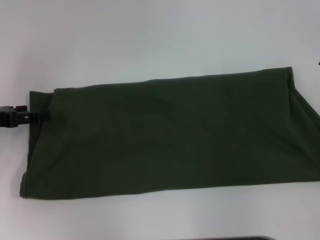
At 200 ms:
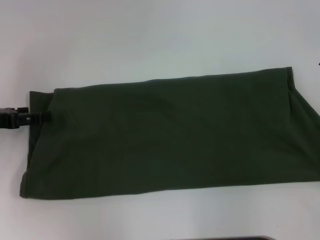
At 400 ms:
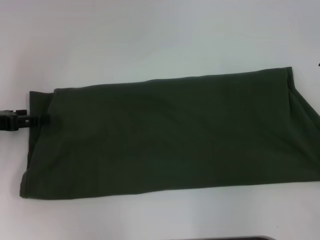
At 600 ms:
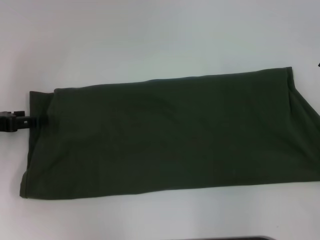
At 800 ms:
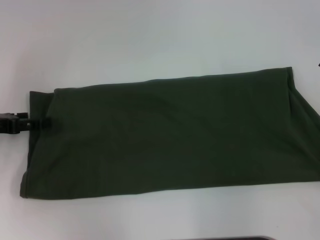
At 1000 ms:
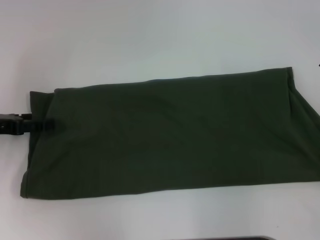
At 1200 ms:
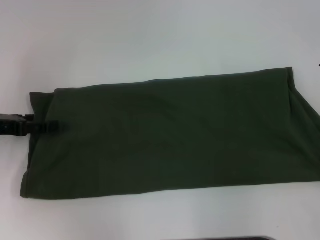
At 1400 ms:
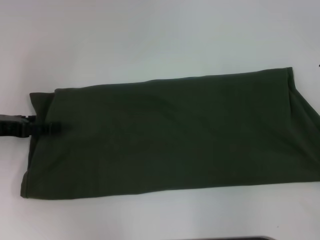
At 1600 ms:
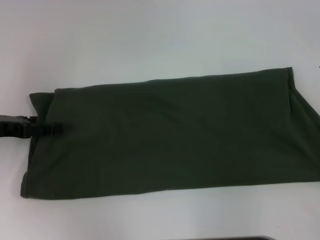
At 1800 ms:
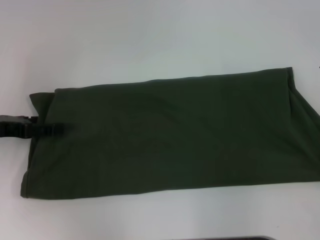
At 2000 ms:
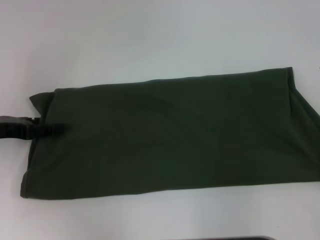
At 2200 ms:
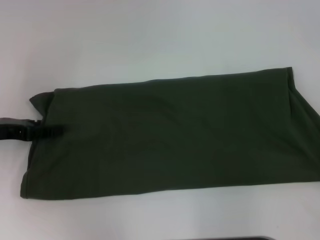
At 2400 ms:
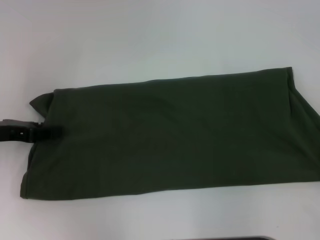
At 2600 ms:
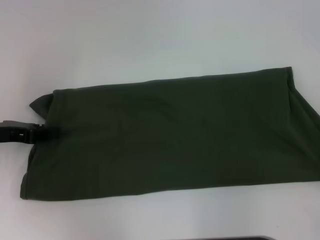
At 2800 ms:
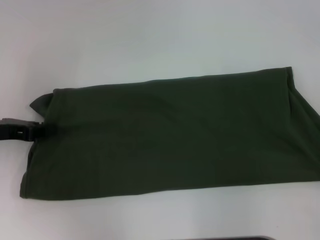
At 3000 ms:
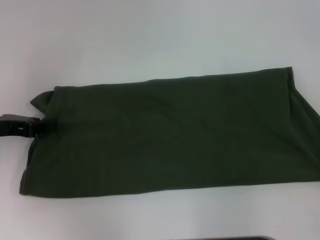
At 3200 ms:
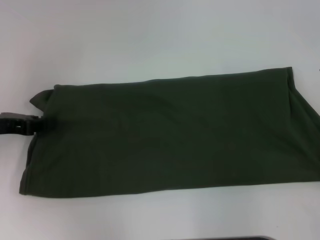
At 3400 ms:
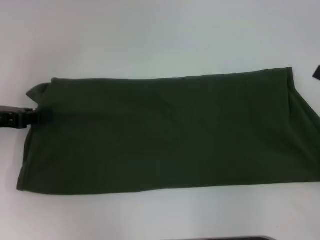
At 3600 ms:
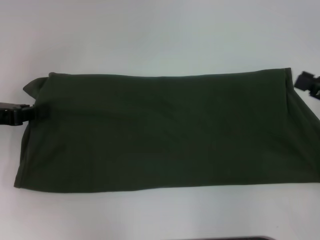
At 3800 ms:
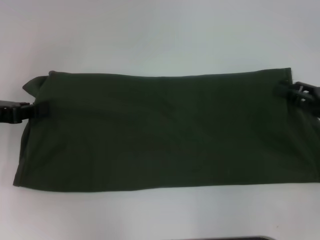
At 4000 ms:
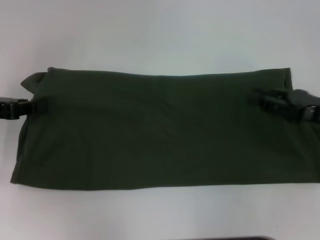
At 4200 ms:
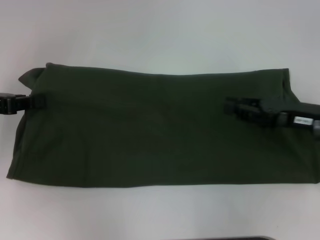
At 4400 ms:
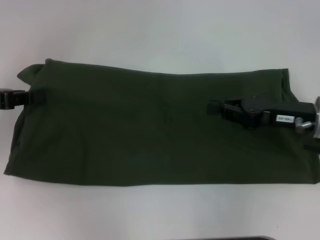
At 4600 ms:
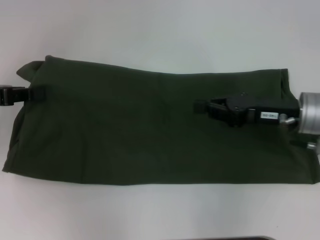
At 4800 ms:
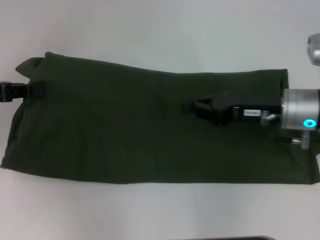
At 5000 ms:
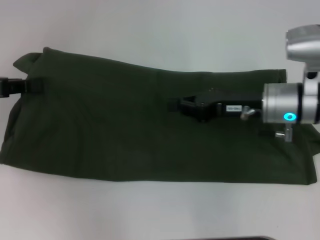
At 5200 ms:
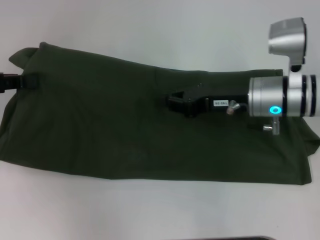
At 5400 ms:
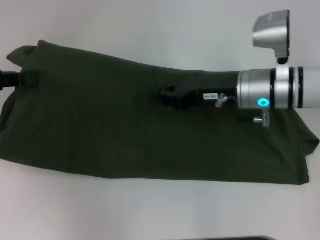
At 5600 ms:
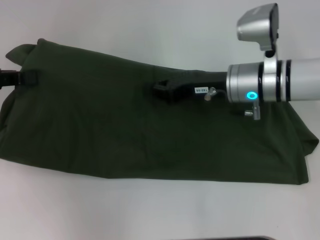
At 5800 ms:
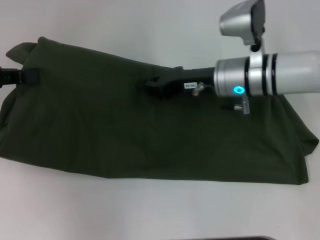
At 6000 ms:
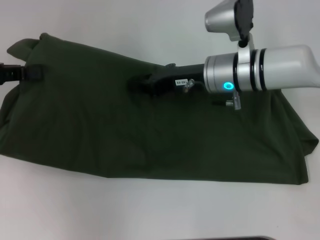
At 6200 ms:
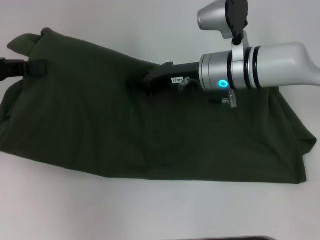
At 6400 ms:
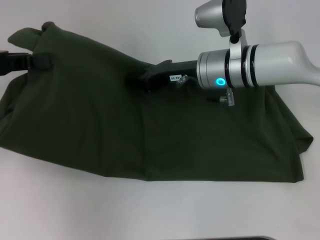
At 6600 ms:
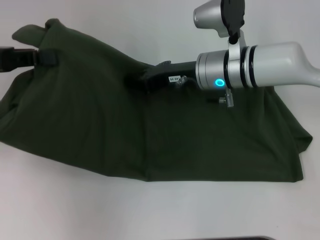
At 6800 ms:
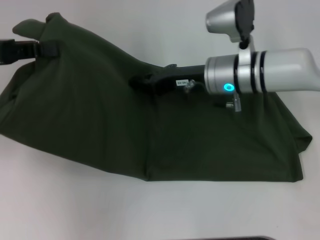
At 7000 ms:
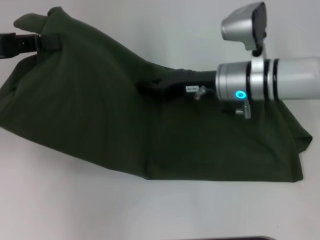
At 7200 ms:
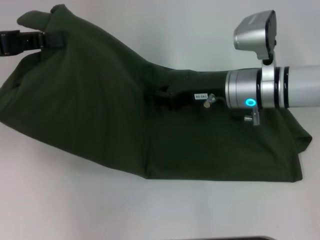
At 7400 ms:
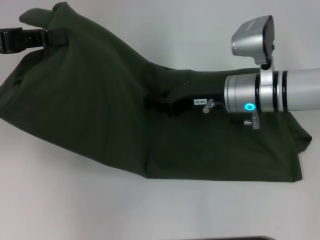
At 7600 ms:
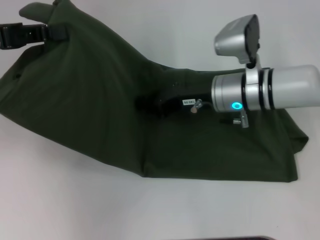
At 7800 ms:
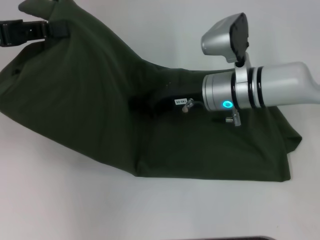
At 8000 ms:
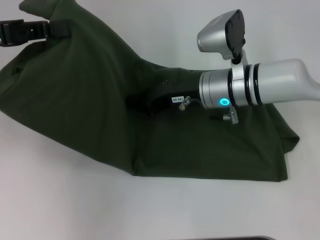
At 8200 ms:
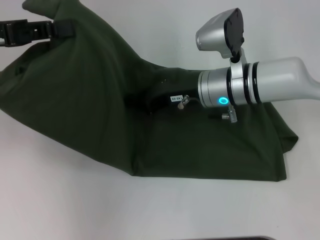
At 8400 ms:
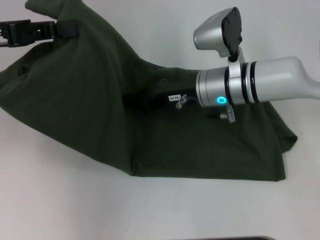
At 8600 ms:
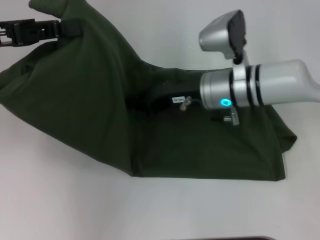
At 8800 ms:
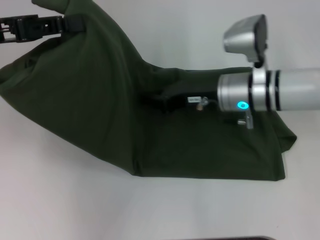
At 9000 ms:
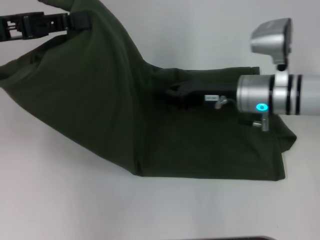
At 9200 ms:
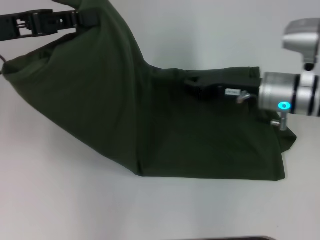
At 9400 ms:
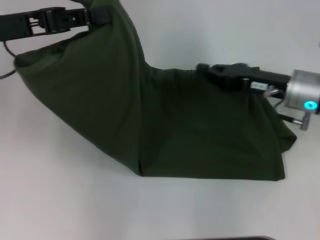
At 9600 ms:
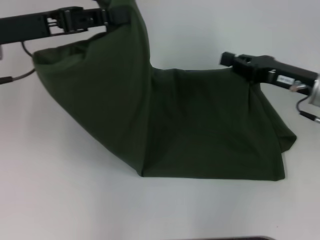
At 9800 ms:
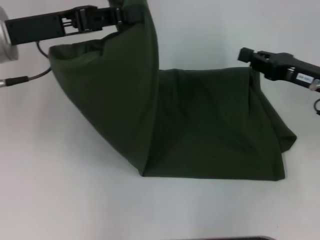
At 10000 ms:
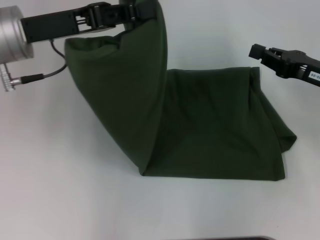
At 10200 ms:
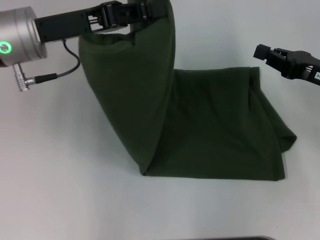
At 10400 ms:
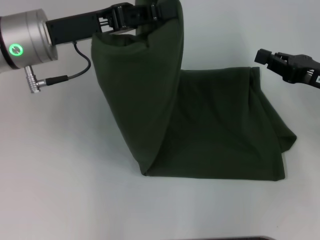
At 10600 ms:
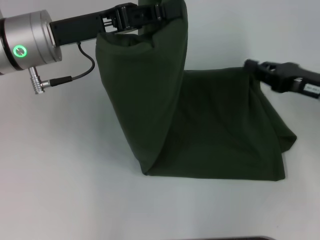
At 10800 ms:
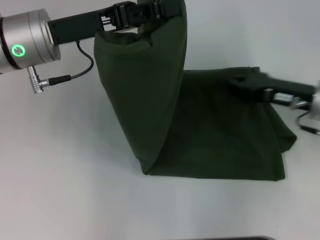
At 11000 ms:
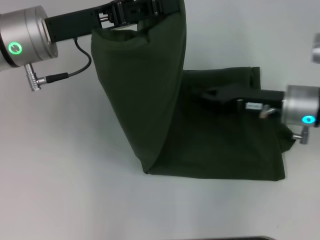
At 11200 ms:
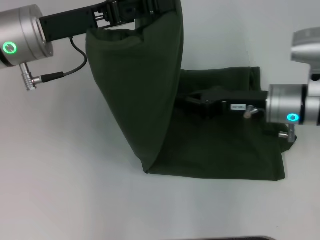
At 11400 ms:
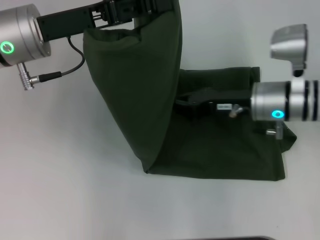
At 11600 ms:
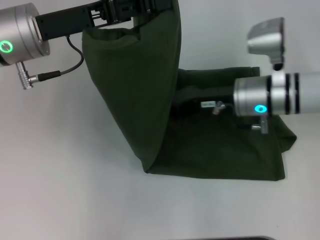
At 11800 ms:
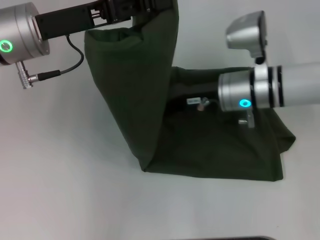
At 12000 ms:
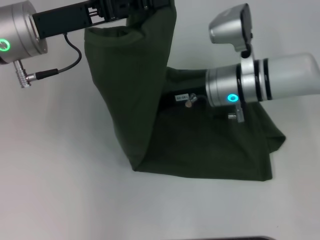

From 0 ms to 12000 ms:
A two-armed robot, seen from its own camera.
From 0 ms to 1600 ms: The grippers make only small movements.
From 1600 ms to 3000 ms: The left gripper closes its fingers.
From 3000 ms to 4400 ms: The right gripper moves to the left and forward, approximately 15 cm. The left gripper moves upward, about 5 cm.
From 4400 ms to 6000 ms: The right gripper travels to the left and forward by roughly 15 cm.
From 7600 ms to 9000 ms: The grippers make only small movements.
From 9000 ms to 10400 ms: The grippers both shift to the right by roughly 10 cm.
From 10400 ms to 12000 ms: The right gripper travels to the left by about 20 cm.

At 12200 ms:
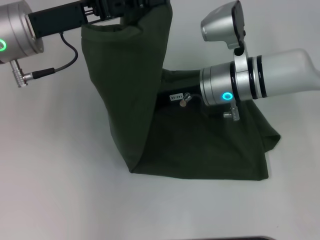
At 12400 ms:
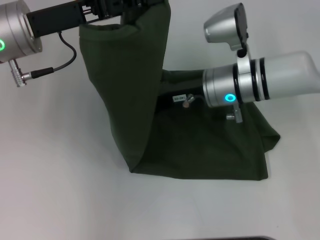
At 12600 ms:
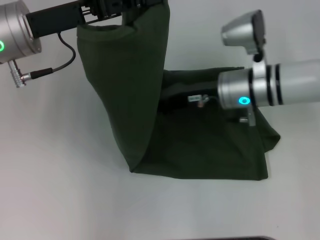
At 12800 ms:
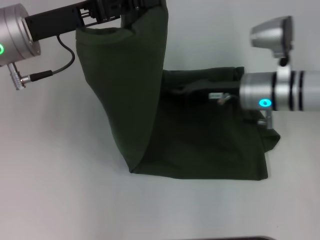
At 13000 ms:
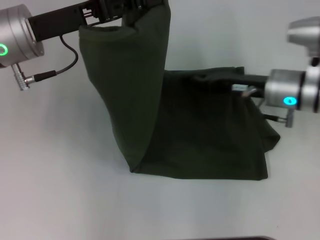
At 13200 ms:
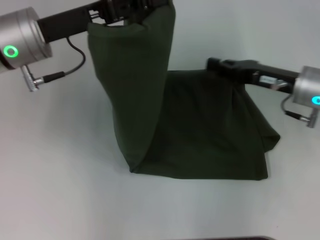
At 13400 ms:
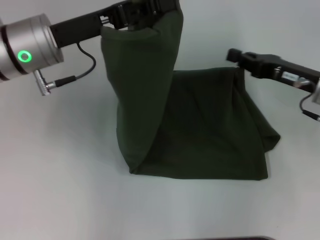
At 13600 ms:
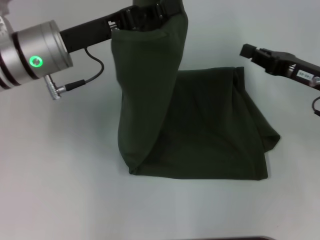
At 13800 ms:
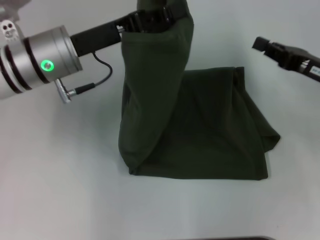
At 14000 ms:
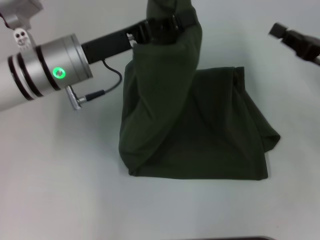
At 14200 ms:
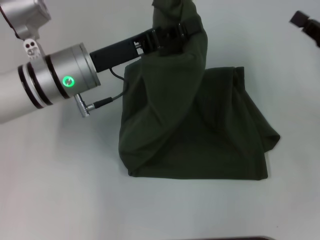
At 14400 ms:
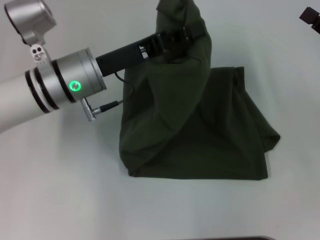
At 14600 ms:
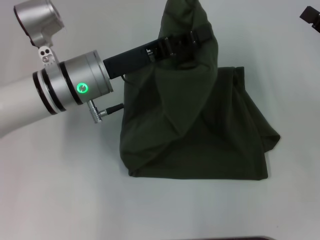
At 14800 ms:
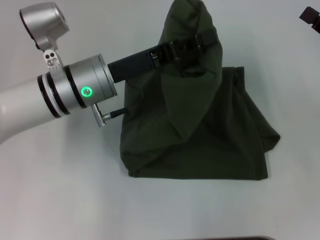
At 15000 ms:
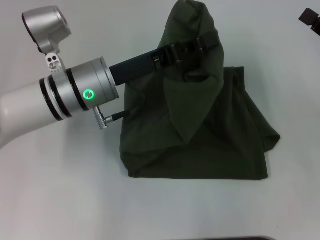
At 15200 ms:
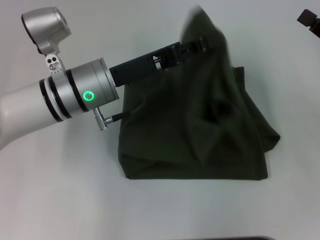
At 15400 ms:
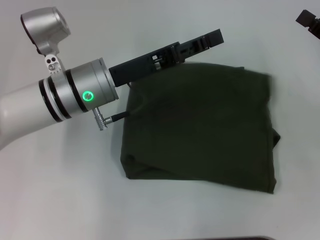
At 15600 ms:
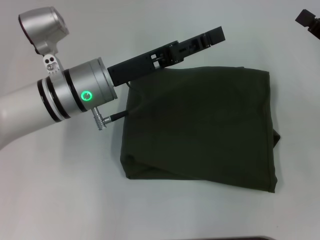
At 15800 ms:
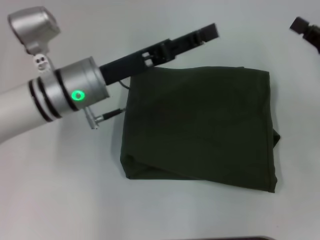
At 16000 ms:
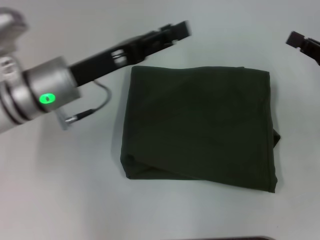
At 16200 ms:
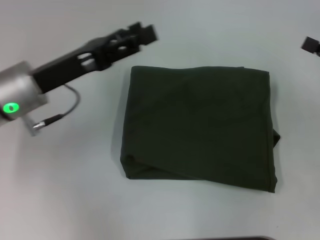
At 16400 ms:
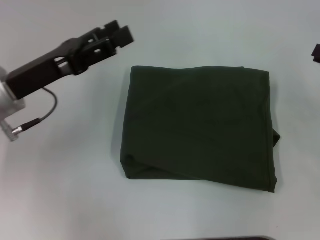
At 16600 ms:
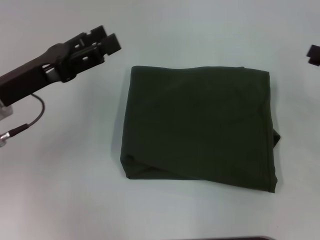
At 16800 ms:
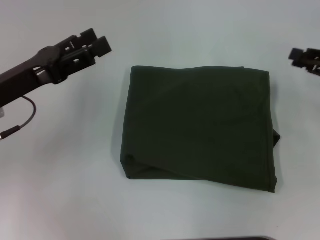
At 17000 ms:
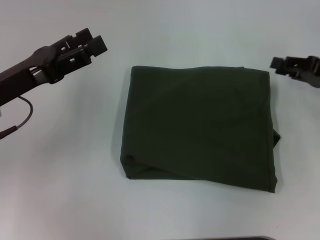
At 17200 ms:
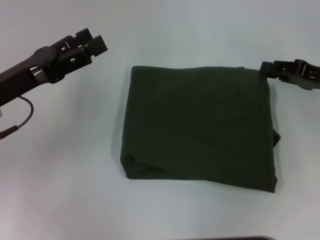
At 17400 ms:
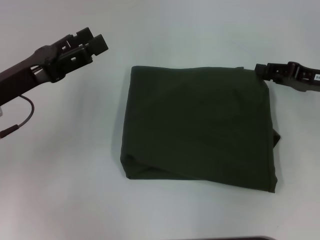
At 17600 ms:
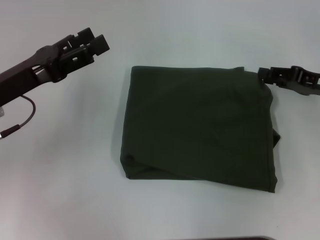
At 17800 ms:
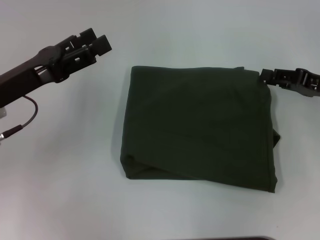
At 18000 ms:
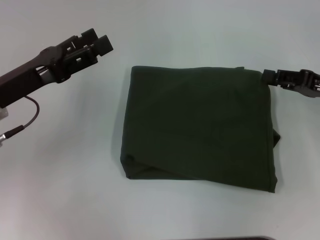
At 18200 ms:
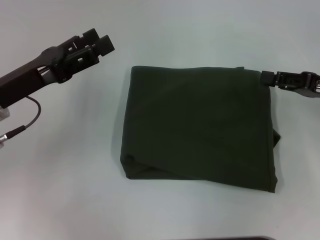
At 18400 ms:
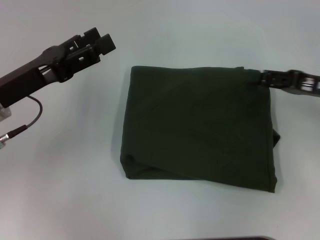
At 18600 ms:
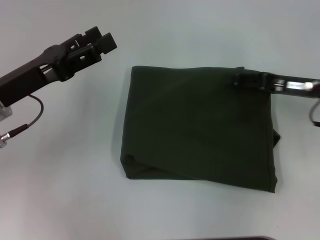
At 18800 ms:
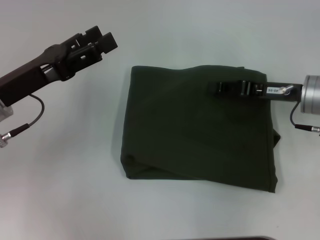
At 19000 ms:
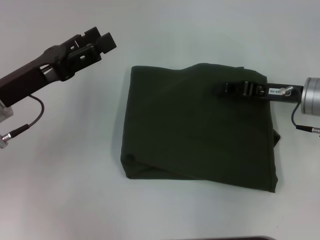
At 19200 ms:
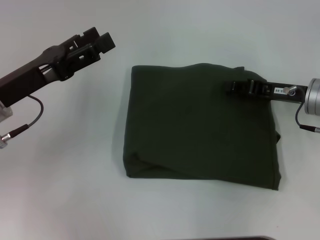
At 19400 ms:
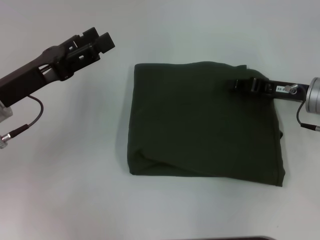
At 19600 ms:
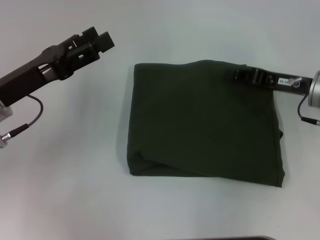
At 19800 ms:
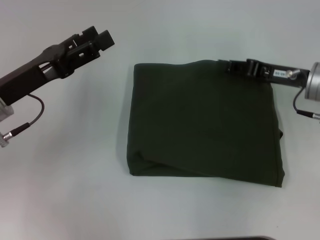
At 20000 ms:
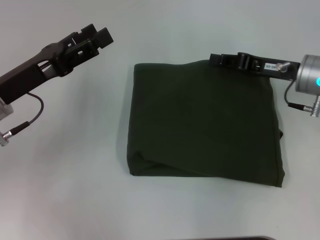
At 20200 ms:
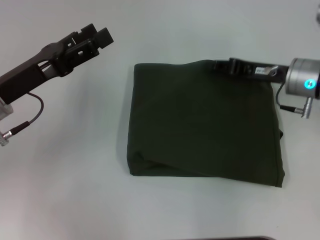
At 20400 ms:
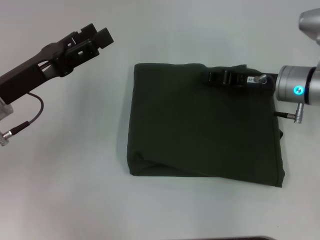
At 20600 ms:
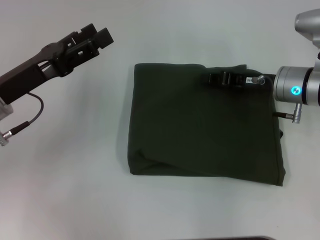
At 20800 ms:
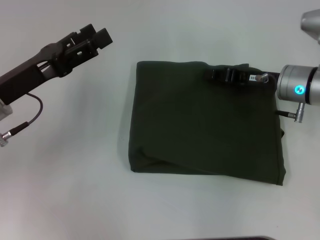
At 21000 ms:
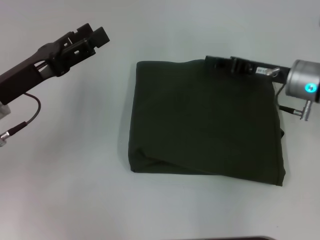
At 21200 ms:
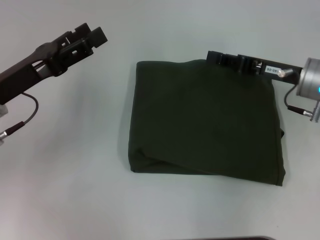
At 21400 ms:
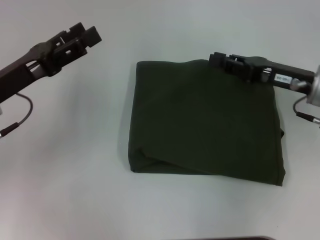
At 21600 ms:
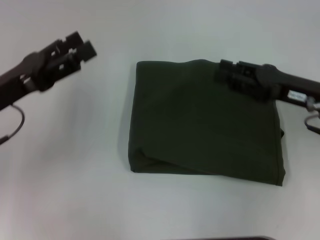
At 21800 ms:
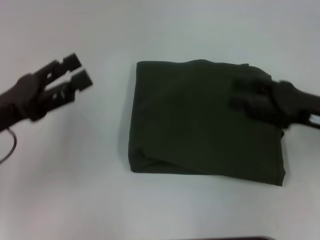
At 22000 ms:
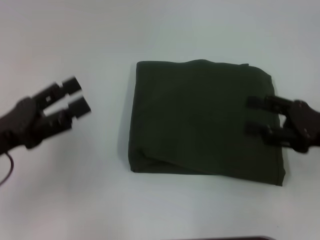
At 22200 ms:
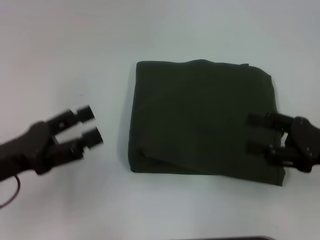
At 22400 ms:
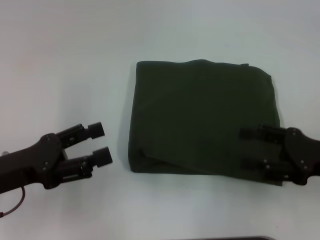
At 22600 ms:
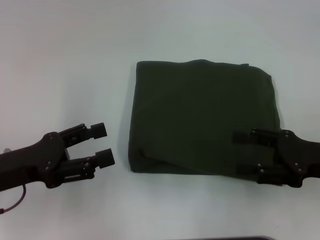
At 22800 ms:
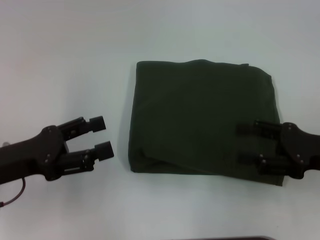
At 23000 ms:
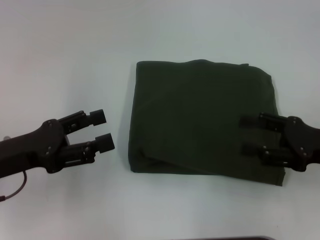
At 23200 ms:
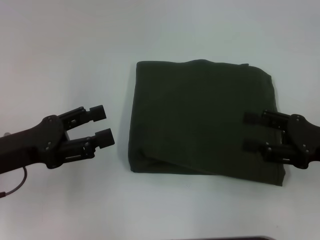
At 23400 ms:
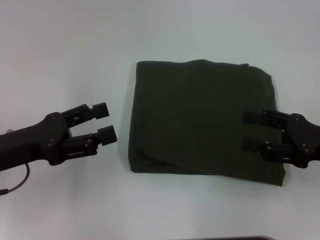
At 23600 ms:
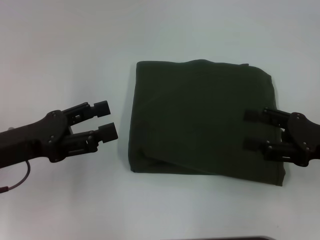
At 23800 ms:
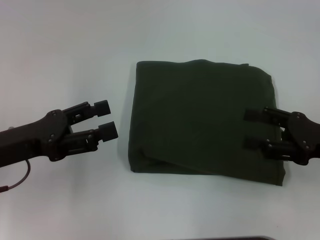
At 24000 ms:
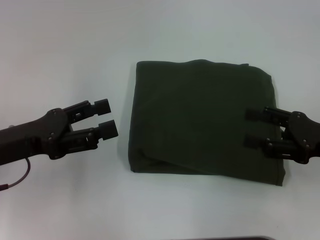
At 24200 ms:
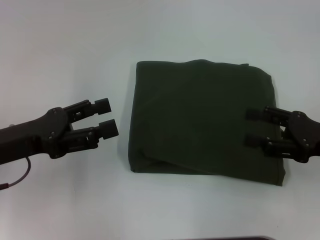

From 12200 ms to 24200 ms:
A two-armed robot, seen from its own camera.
Step, from 12200 ms to 15400 ms: Fold the clothes with your left hand.
From 12200 ms to 13800 ms: The left gripper ends up approximately 5 cm from where it was. The right gripper travels to the right by about 20 cm.
From 13800 ms to 15200 ms: The left gripper changes place by about 5 cm.
From 15200 ms to 16600 ms: The left gripper goes some 15 cm to the left, and opens up, while the right gripper opens its fingers.
From 16600 ms to 18200 ms: The right gripper goes about 5 cm to the left.
From 18200 ms to 19800 ms: The right gripper shifts some 5 cm to the left.
From 19800 ms to 21200 ms: The grippers stay close to where they were, moving slightly.
From 21200 ms to 22600 ms: The right gripper goes approximately 10 cm backward, and opens; the left gripper shifts some 10 cm backward.
From 22600 ms to 24200 ms: The grippers stay close to where they were, moving slightly.
